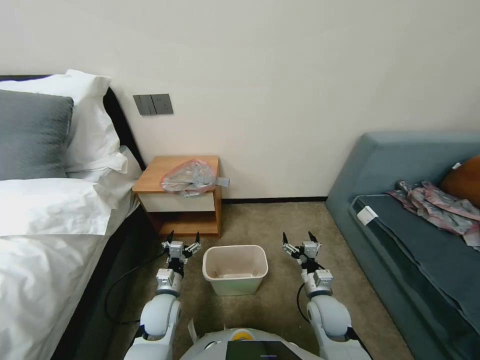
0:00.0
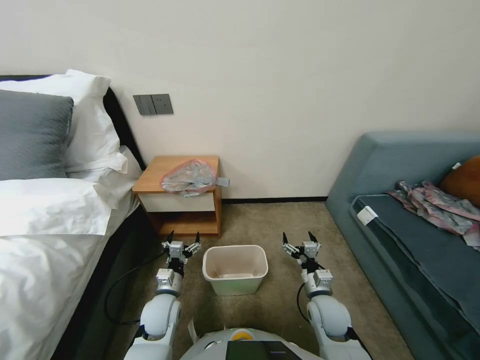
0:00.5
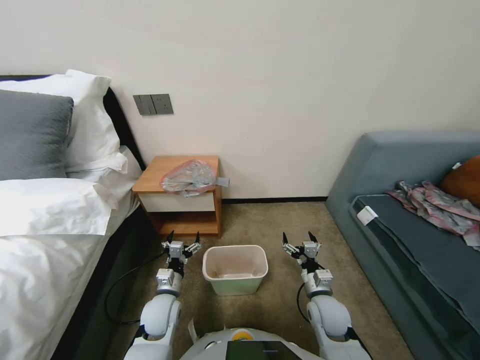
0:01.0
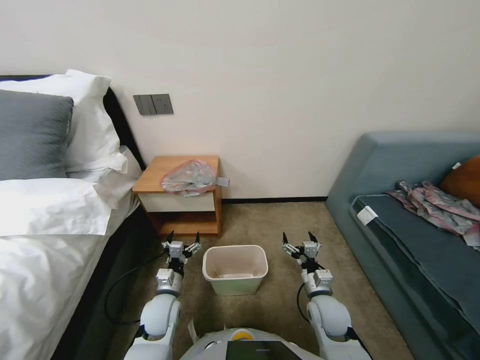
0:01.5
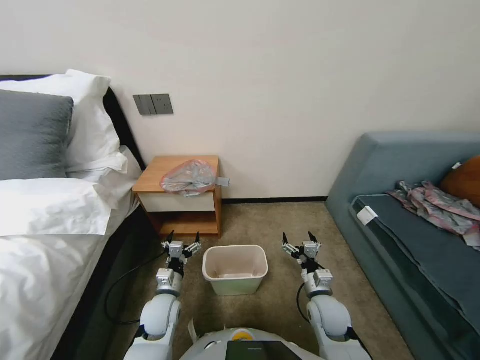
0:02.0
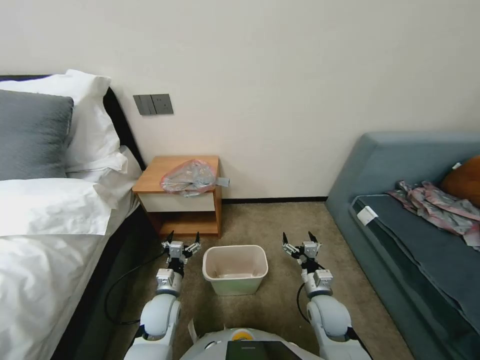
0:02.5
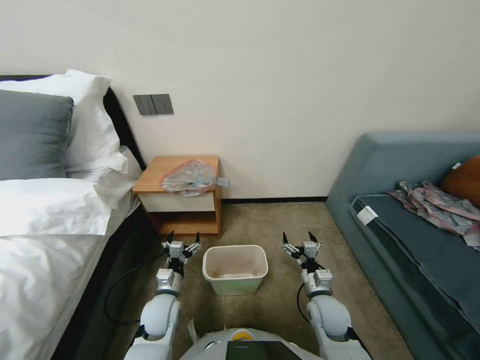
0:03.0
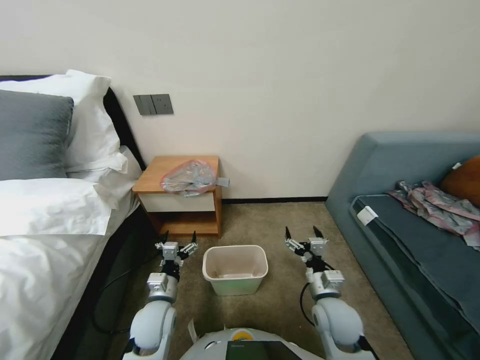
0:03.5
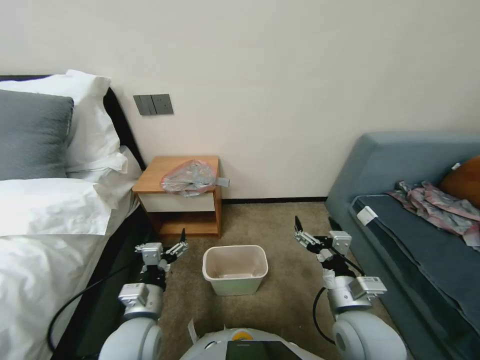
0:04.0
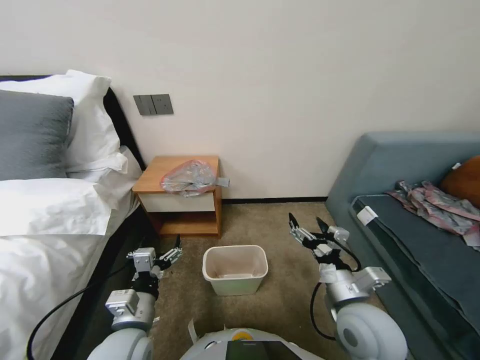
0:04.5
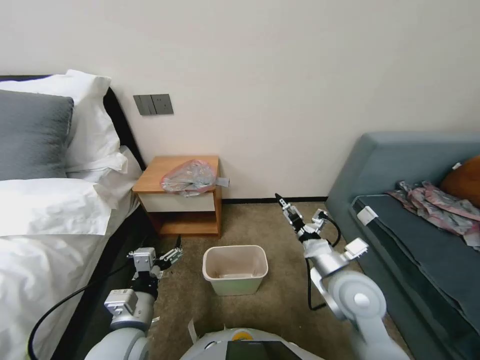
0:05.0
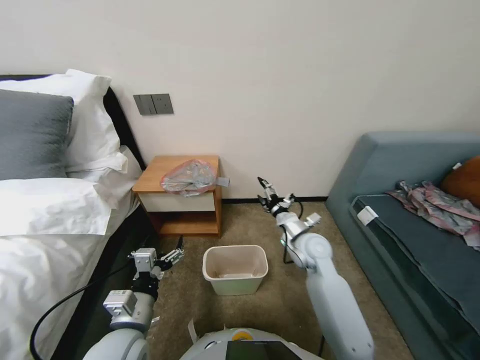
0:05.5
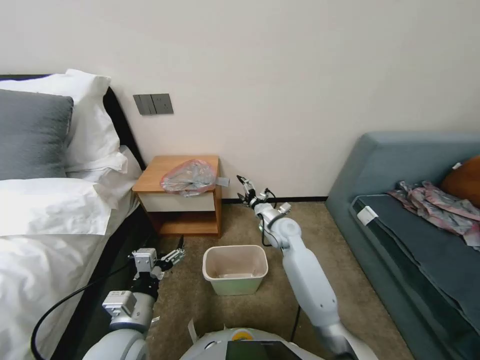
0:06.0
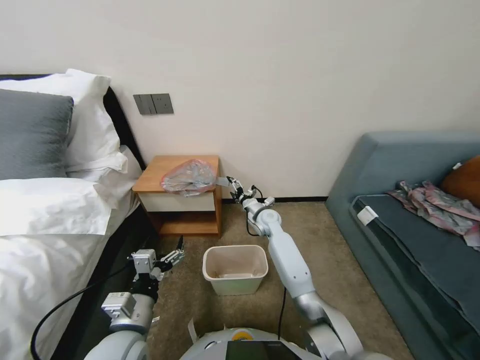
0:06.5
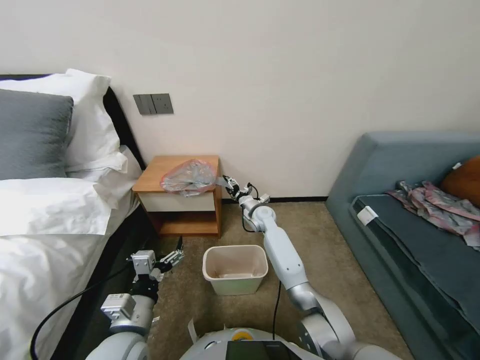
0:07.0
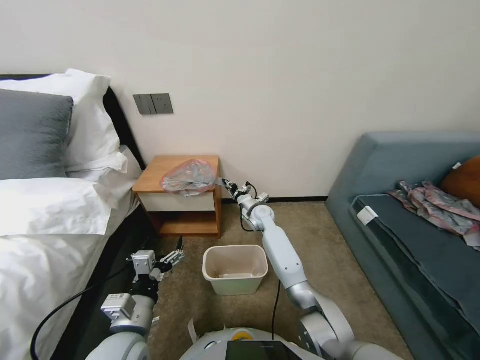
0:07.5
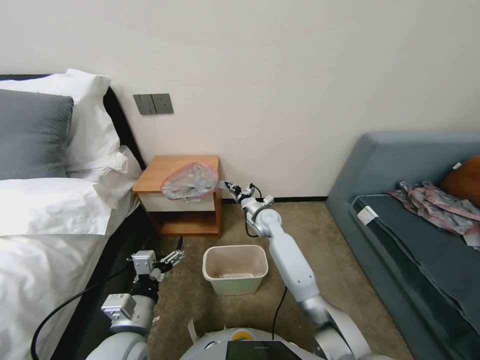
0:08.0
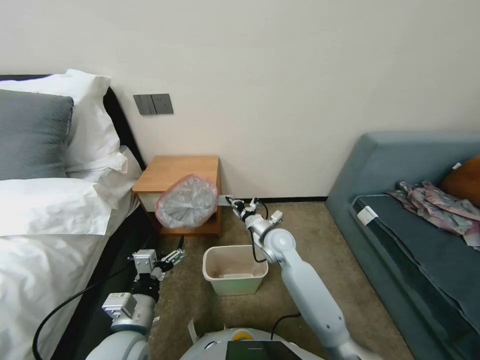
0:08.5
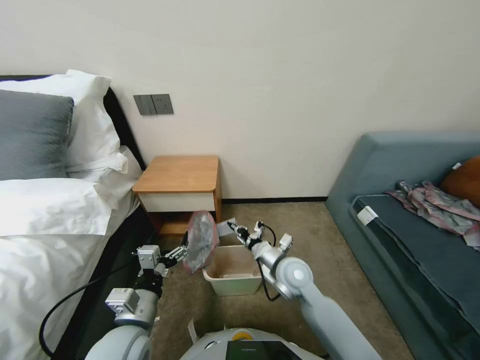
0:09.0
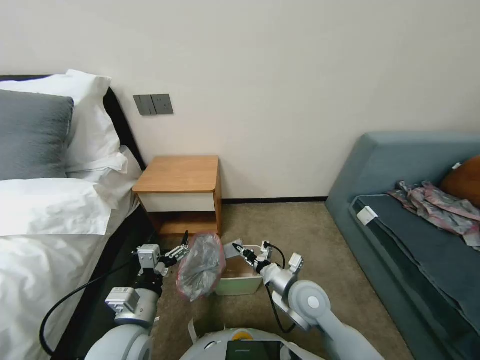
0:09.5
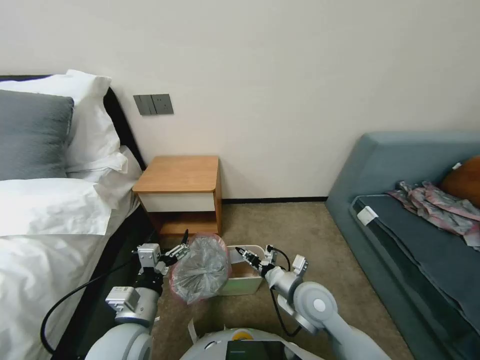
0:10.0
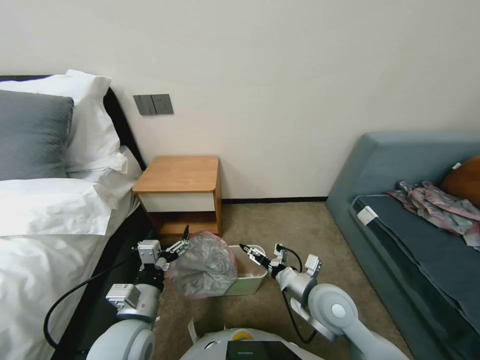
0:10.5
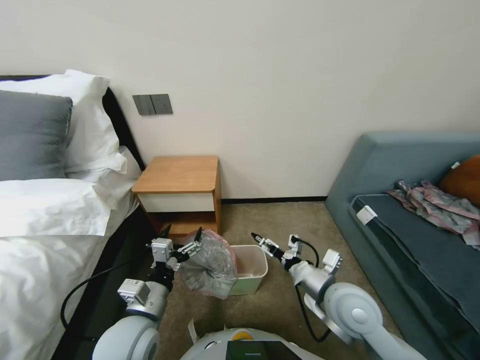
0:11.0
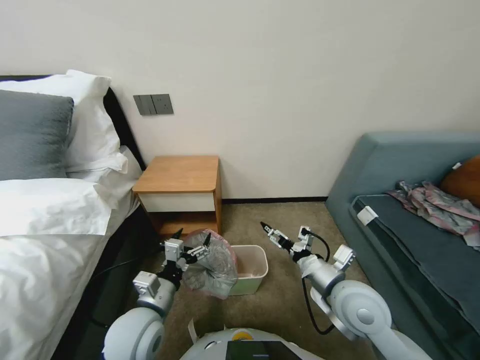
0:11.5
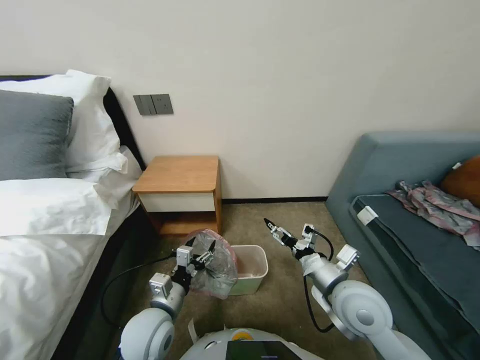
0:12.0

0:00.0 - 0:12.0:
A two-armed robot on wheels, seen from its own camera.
Task of the whole recording: Pick up the garbage bag from the table and place it over the trash can.
0:02.0 - 0:04.0: Both grippers move upward and backward, approximately 15 cm.
0:04.0 - 0:06.0: The right gripper goes some 25 cm forward.
0:06.0 - 0:08.0: The right gripper heads forward and to the left, covering about 10 cm, and closes its fingers.
0:08.0 - 0:10.0: The right gripper is displaced backward by some 25 cm.
0:10.0 - 0:12.0: The left gripper ends up about 5 cm from where it was. Meanwhile the right gripper travels upward and to the right by some 10 cm, and opens up.

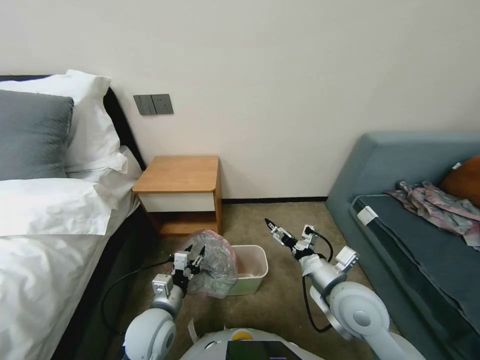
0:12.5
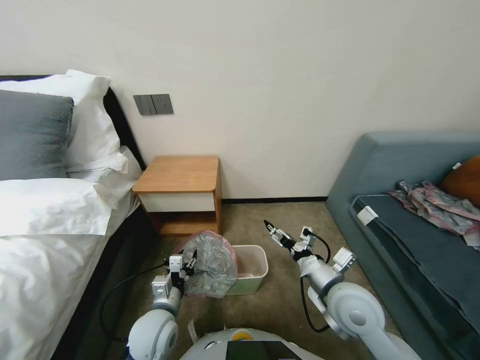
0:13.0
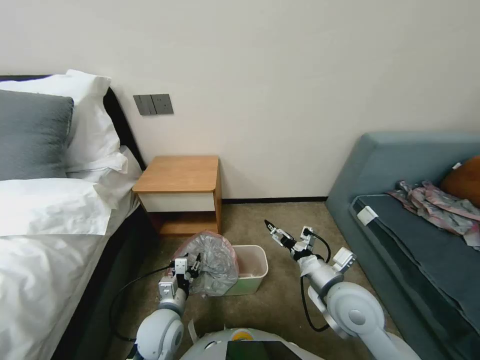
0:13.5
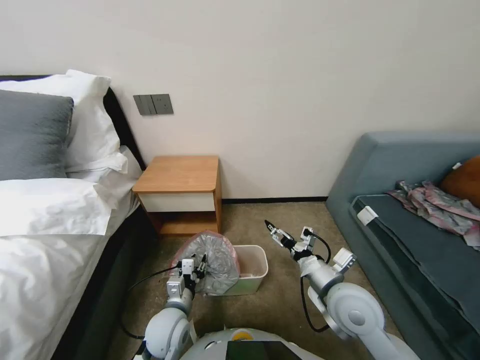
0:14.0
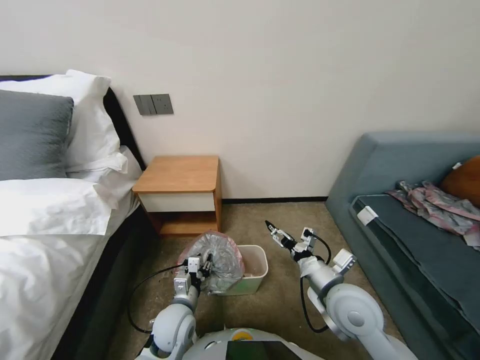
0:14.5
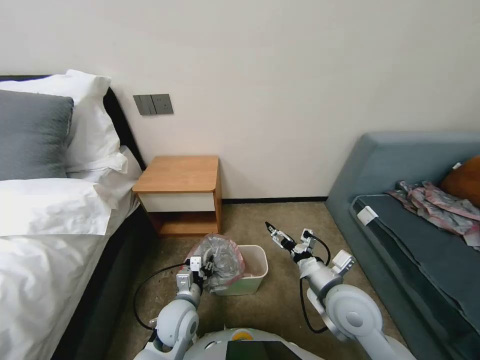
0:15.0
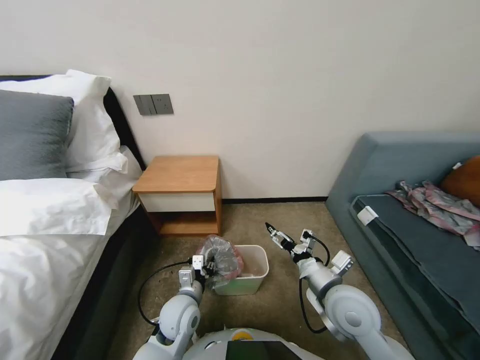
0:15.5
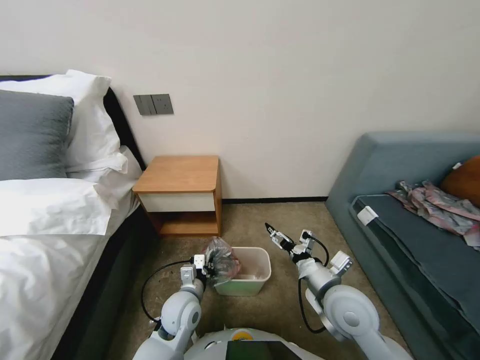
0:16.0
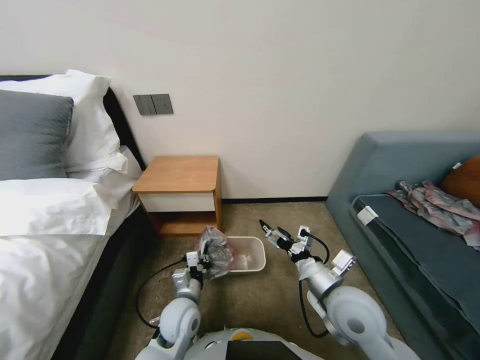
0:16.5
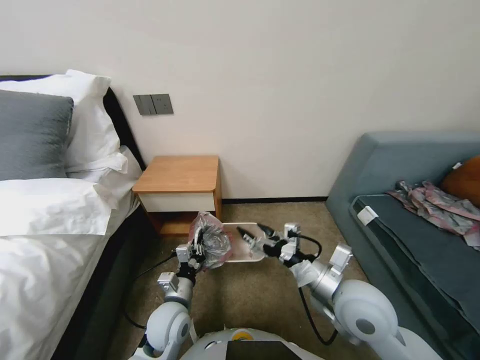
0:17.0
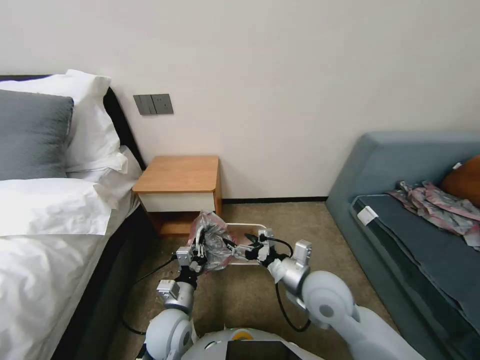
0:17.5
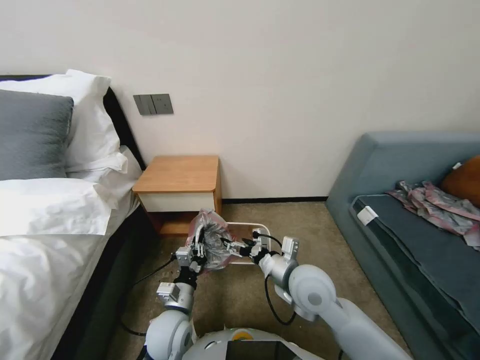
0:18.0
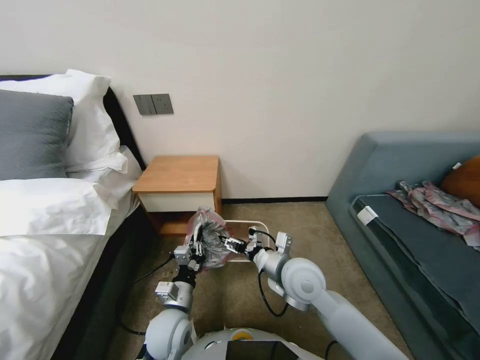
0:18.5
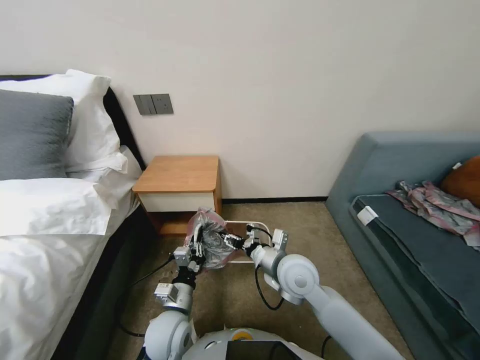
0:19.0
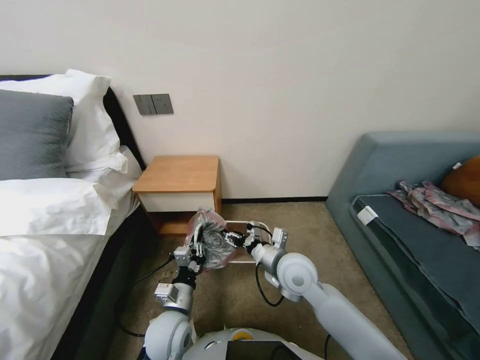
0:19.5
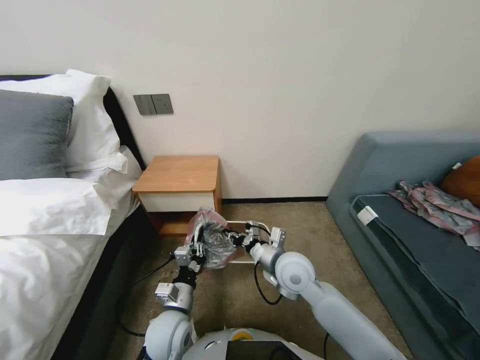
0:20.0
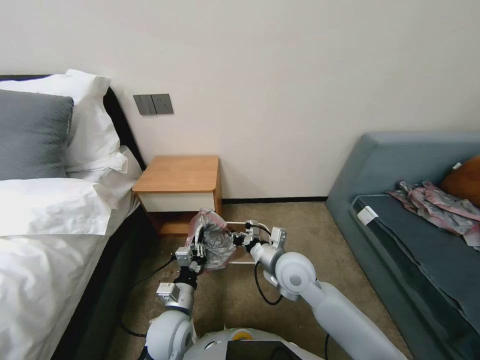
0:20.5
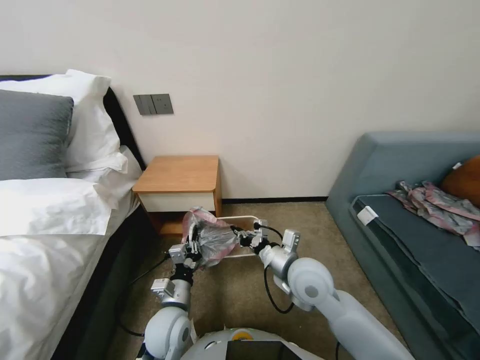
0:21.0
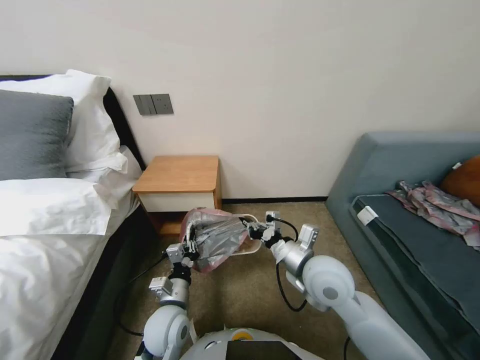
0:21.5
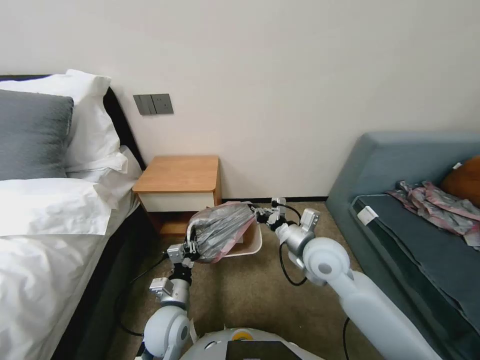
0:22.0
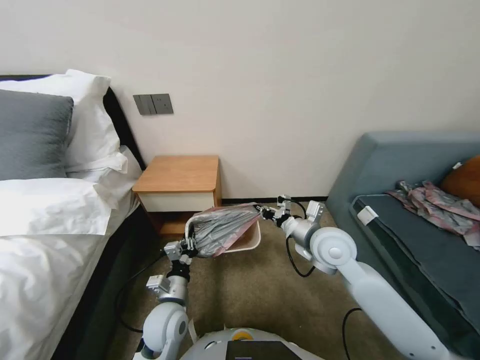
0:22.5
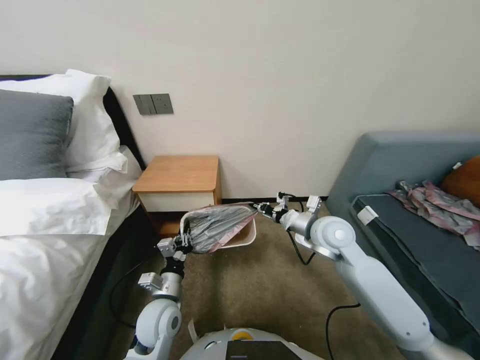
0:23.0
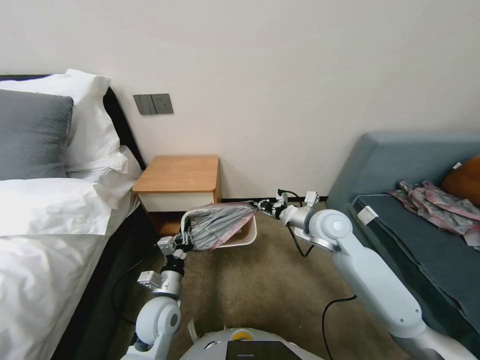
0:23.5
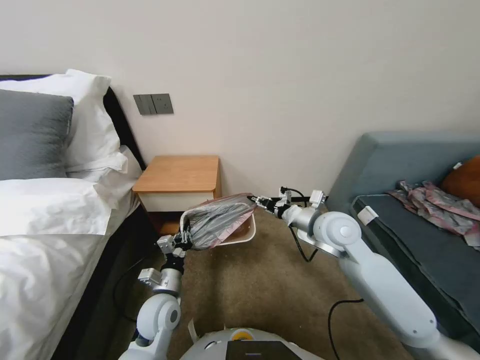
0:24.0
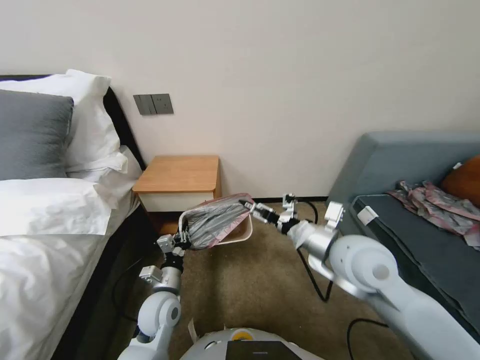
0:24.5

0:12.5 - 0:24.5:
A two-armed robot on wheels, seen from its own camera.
Task of the whole recording: Pick up the garbage bag from the table and place it over the trash can.
0:12.5 - 0:14.5: The left gripper goes some 5 cm downward.
0:14.5 - 0:16.5: The left gripper closes up.
0:16.5 - 0:18.5: The right gripper moves to the left and forward, roughly 10 cm.
0:18.5 - 0:20.5: The right gripper closes up.
0:20.5 - 0:22.5: The right gripper goes some 10 cm to the right and upward.
0:22.5 - 0:24.5: The right gripper goes approximately 5 cm upward, and opens.

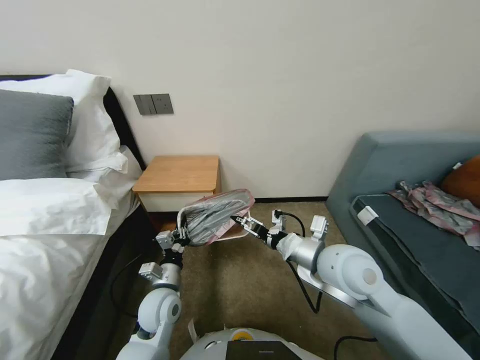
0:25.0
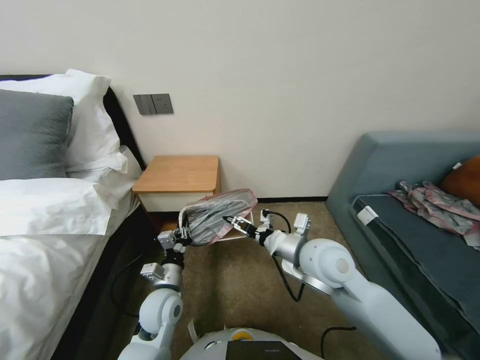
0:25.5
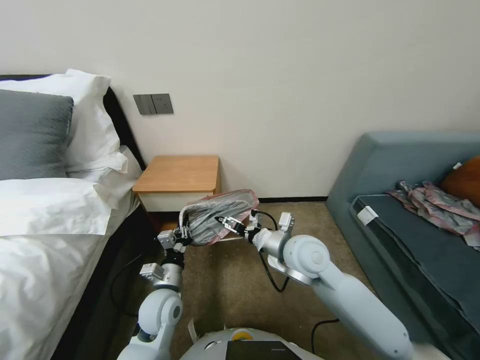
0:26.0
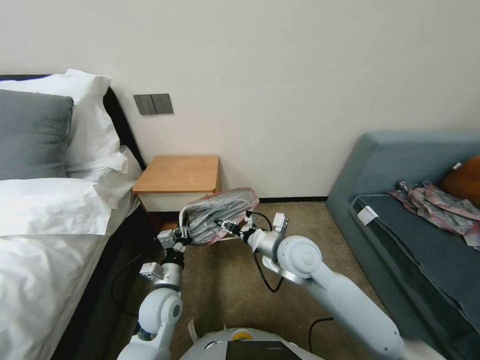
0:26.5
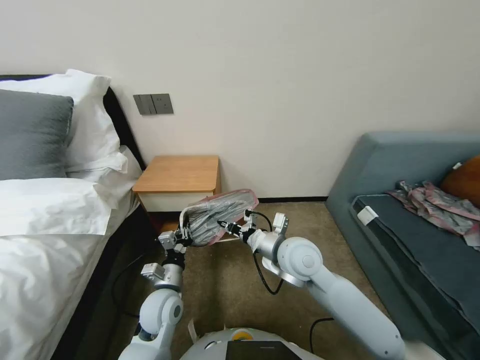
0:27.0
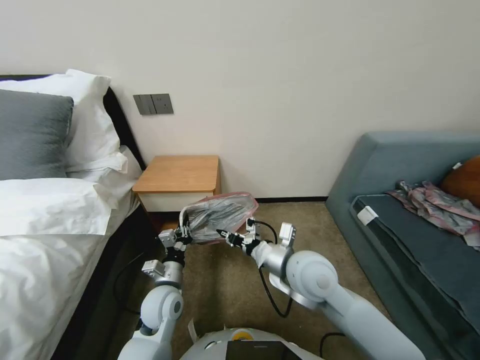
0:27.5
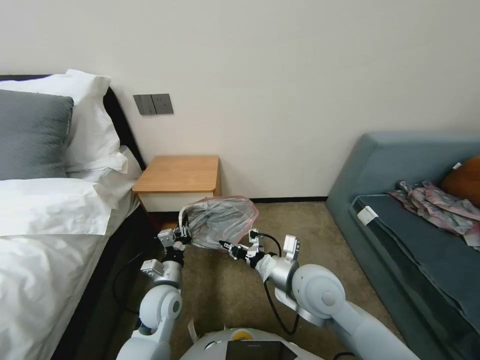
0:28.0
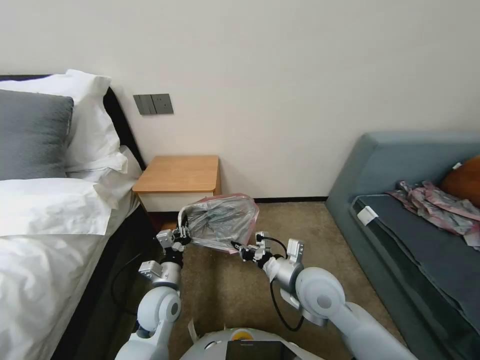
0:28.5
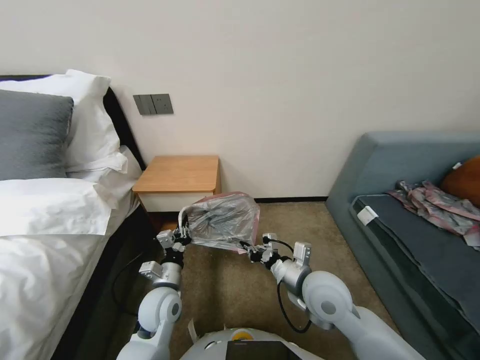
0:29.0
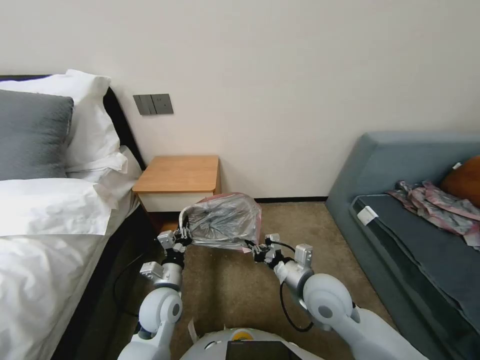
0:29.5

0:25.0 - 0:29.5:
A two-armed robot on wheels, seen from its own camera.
Task of the whole recording: Pick up the garbage bag from the table and place it over the trash can.
0:25.0 - 0:27.0: The right gripper goes some 10 cm to the left, forward and downward, and closes up.
0:27.0 - 0:29.5: The right gripper travels backward and to the right by some 10 cm.
